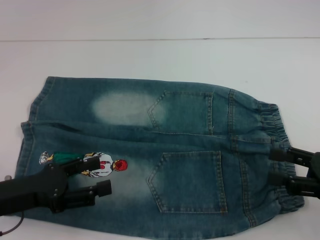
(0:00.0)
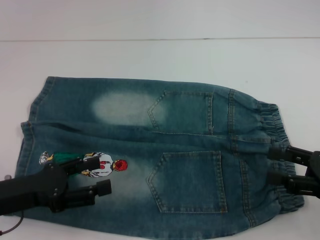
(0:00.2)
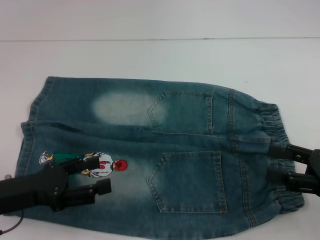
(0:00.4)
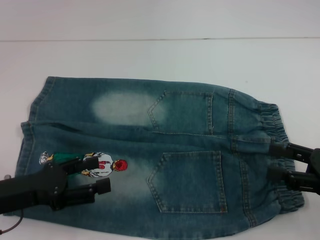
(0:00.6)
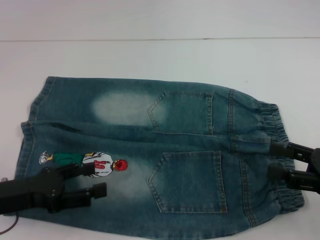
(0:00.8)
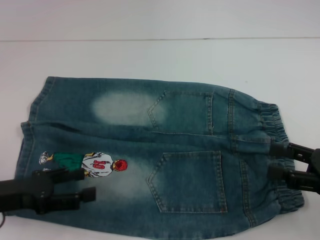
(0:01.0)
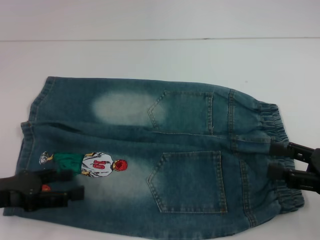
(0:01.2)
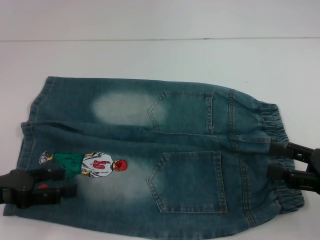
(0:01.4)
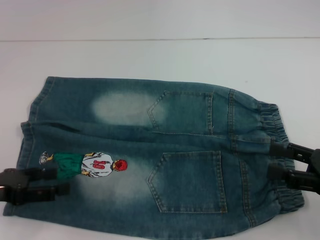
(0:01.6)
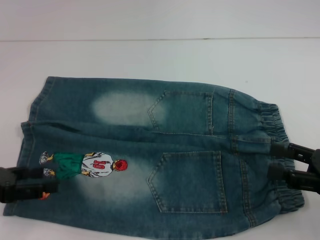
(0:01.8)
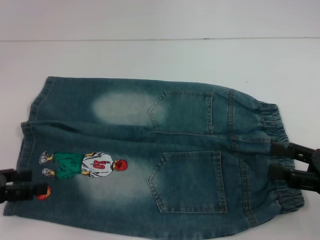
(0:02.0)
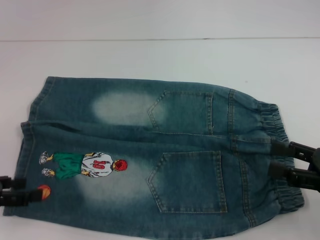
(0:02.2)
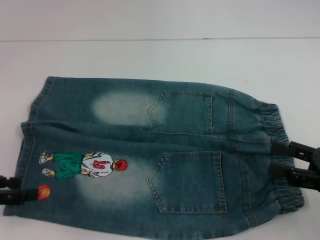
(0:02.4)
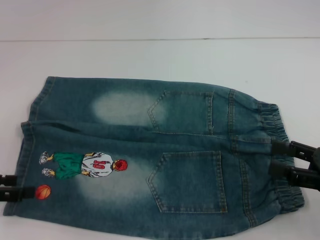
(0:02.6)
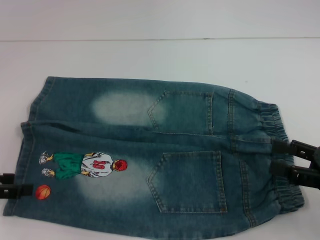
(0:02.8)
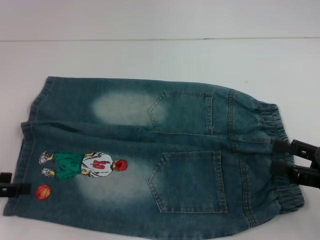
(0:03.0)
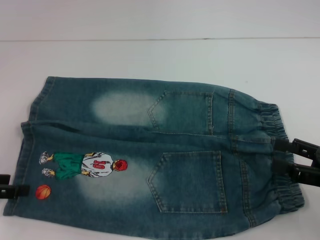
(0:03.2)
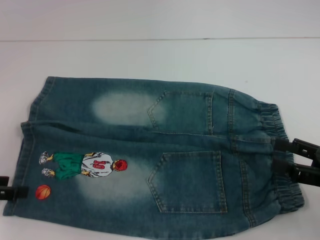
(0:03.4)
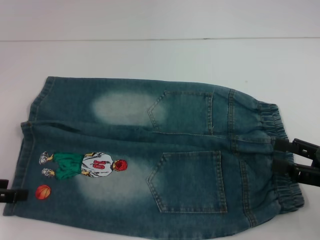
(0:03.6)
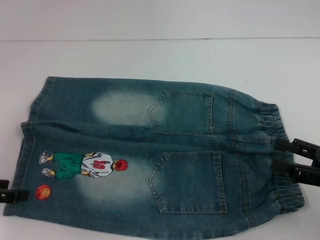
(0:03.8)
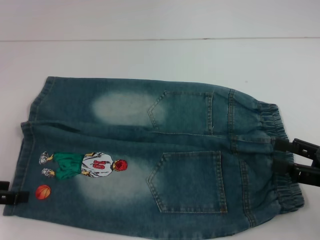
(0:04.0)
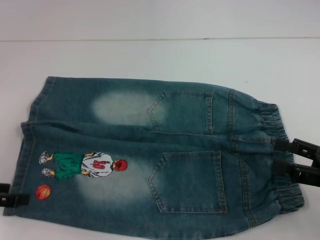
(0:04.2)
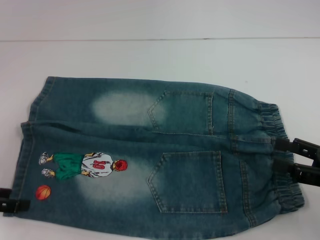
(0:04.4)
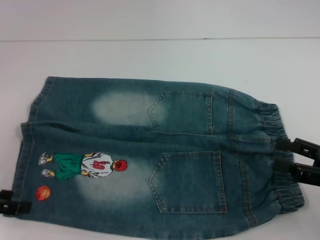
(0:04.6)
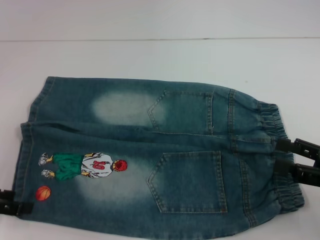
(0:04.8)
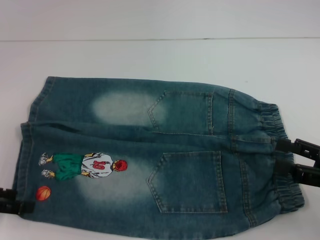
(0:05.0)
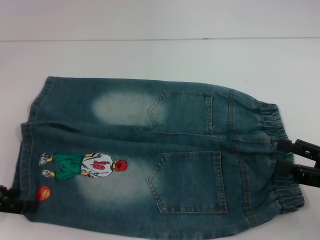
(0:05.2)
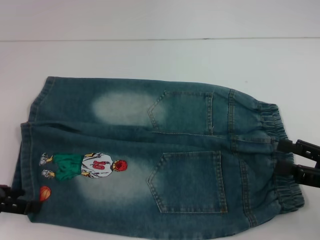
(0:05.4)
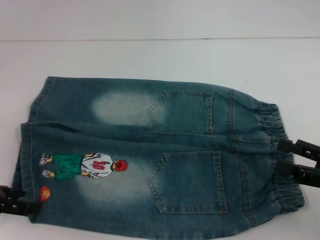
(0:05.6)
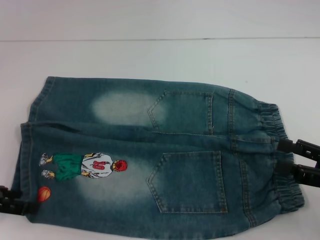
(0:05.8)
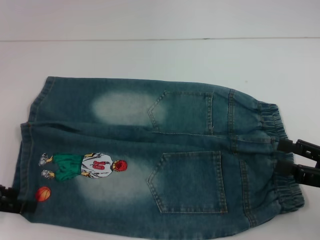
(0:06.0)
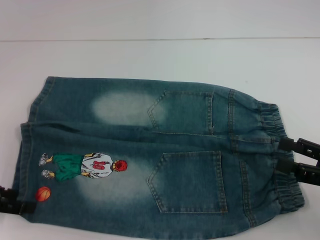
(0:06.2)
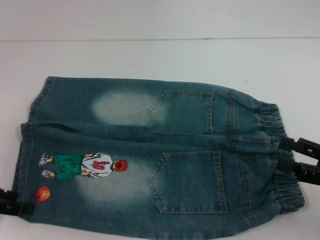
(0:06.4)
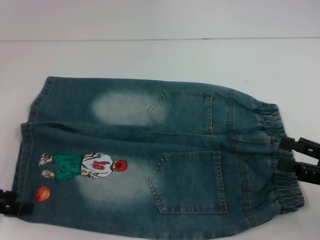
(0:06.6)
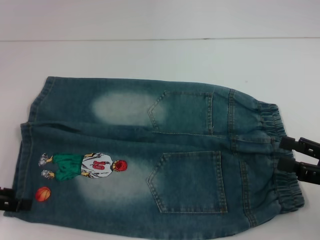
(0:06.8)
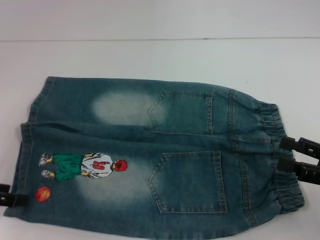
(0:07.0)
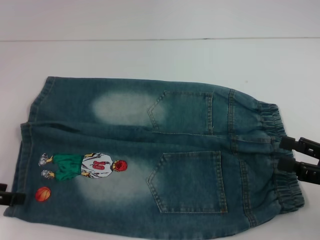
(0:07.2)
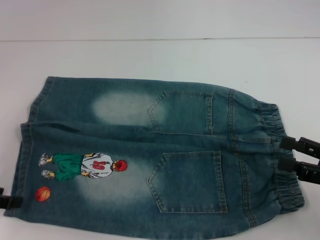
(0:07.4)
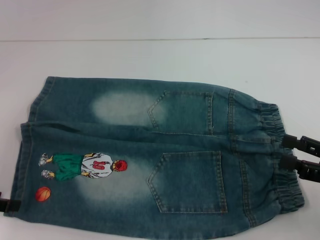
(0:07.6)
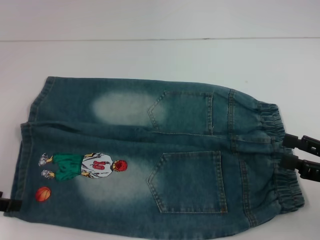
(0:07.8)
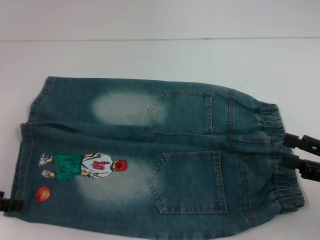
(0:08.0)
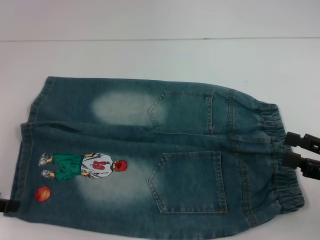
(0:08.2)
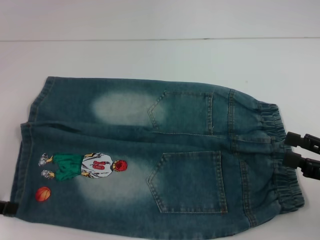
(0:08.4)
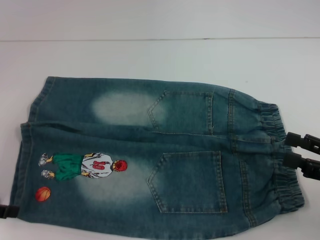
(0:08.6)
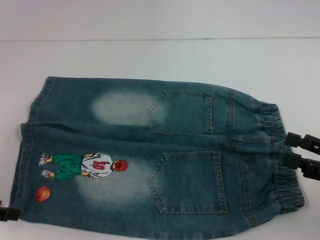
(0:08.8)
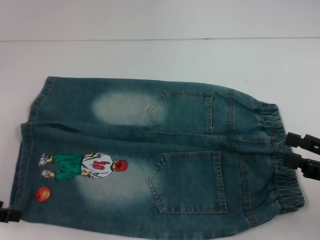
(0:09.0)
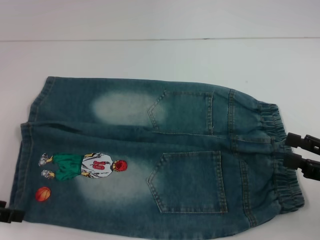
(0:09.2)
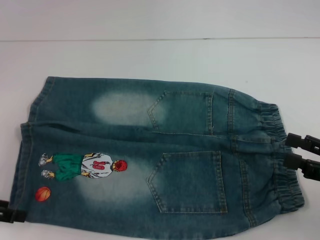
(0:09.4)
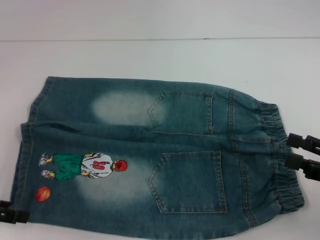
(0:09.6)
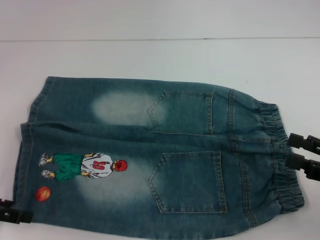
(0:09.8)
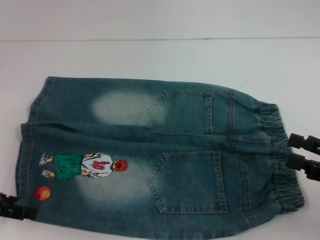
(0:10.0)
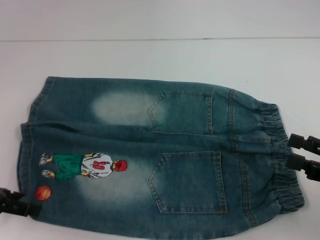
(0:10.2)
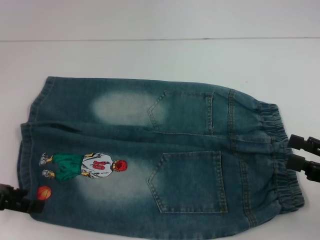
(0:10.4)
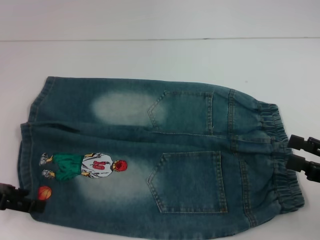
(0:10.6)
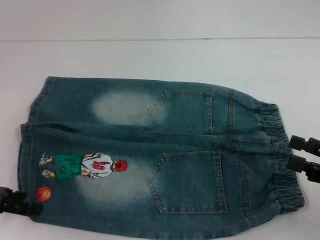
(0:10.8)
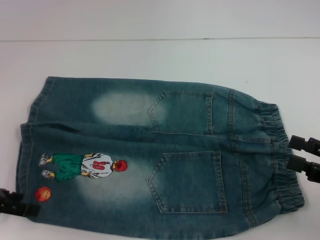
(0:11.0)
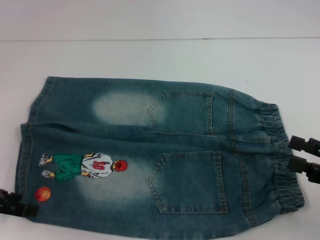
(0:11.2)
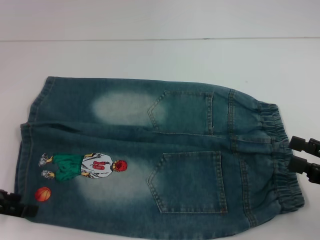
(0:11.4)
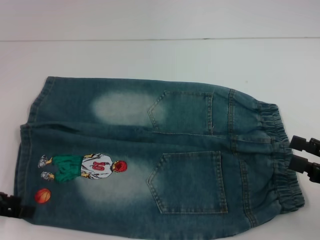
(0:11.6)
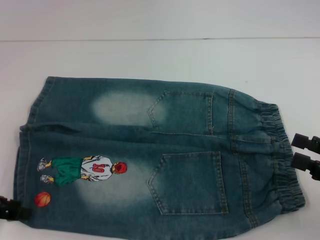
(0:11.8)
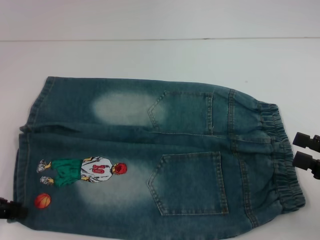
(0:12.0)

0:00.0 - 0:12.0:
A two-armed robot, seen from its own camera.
Step, 0:00.0 - 0:06.0: Grab the lower left pant leg with your left hand.
0:00.0 - 0:01.6: The left gripper moves to the left, approximately 5 cm.
0:01.6 - 0:03.0: There are only small adjustments of the grippers.
0:03.0 - 0:07.6: There are only small adjustments of the grippers.
0:07.6 - 0:09.0: Both grippers stay put.
0:09.0 - 0:10.4: The grippers stay close to where they were, moving slightly.
0:10.4 - 0:12.0: The left gripper closes up.

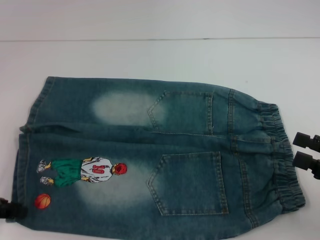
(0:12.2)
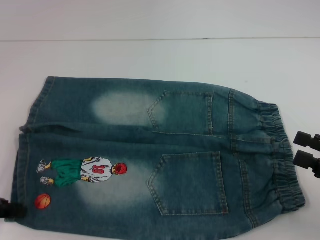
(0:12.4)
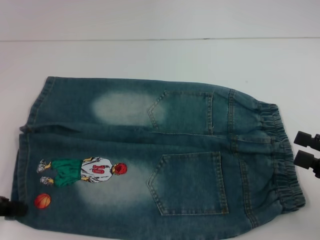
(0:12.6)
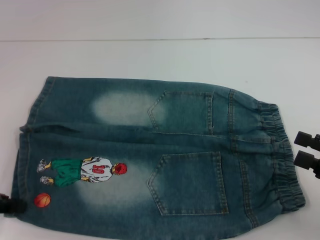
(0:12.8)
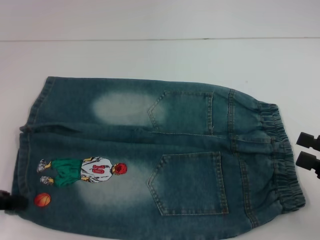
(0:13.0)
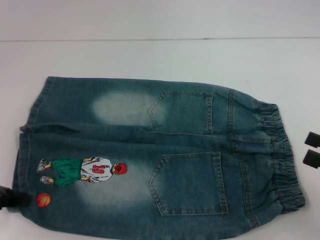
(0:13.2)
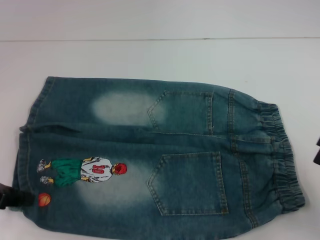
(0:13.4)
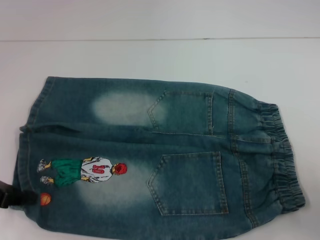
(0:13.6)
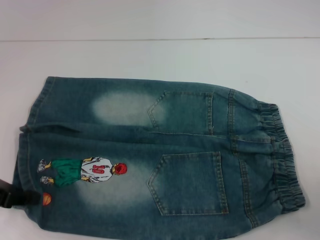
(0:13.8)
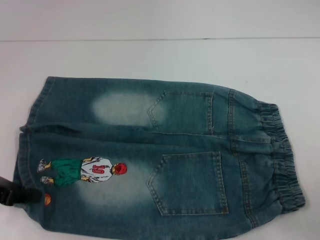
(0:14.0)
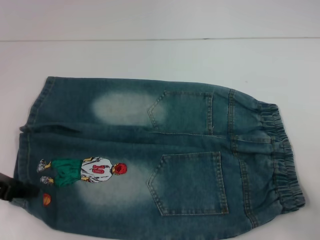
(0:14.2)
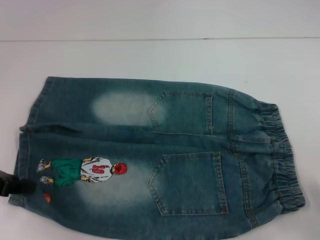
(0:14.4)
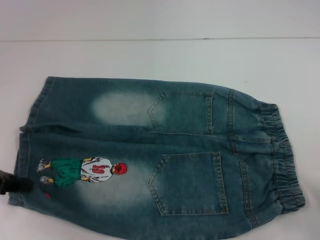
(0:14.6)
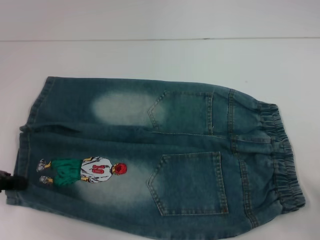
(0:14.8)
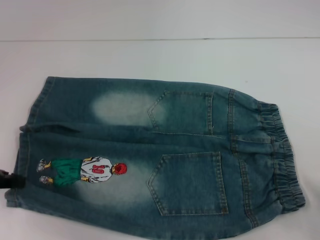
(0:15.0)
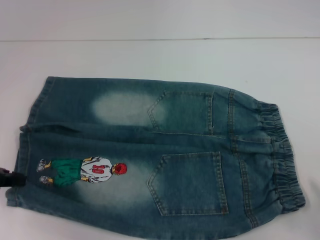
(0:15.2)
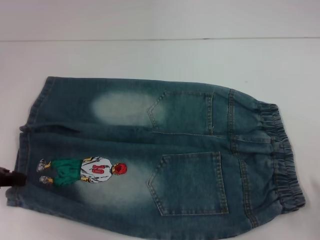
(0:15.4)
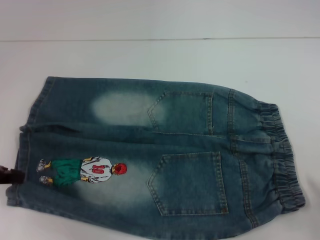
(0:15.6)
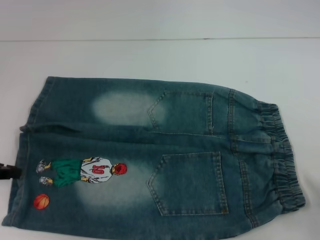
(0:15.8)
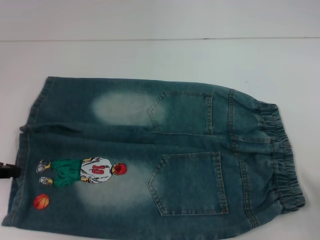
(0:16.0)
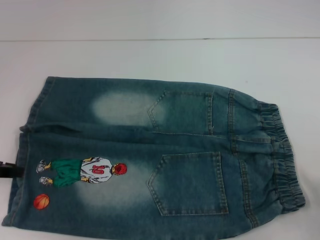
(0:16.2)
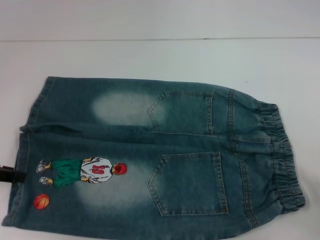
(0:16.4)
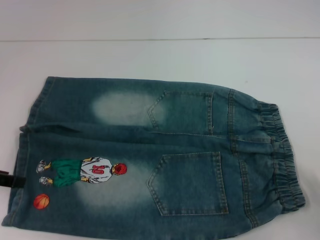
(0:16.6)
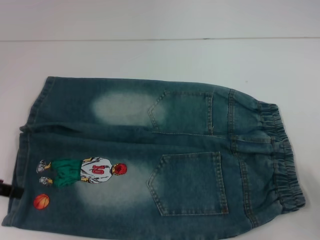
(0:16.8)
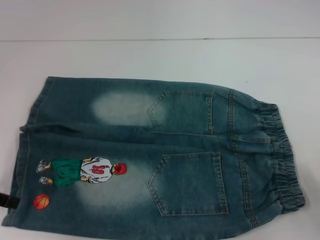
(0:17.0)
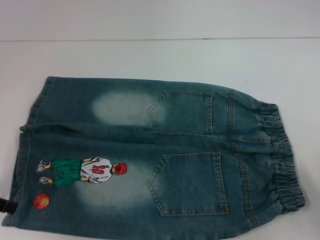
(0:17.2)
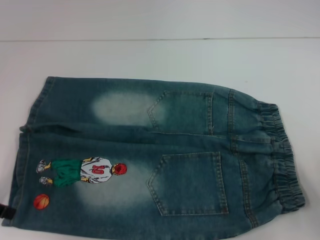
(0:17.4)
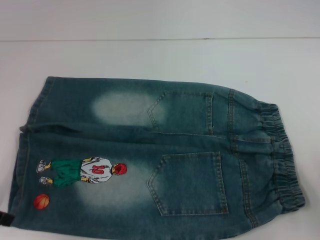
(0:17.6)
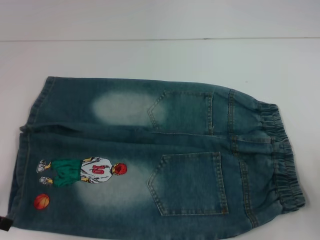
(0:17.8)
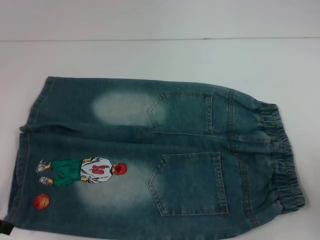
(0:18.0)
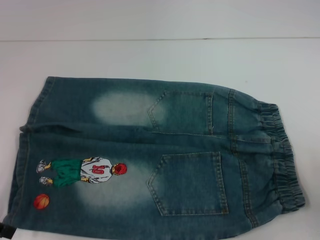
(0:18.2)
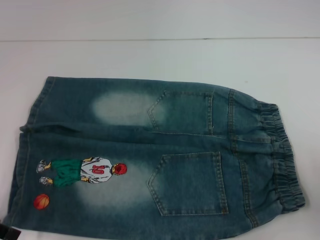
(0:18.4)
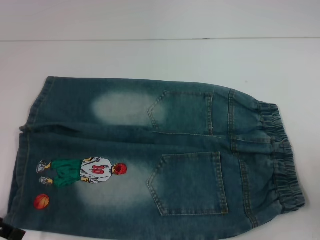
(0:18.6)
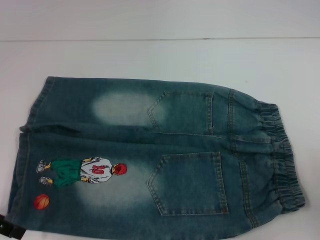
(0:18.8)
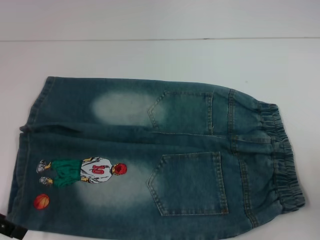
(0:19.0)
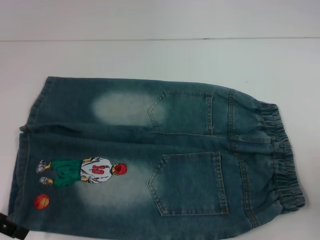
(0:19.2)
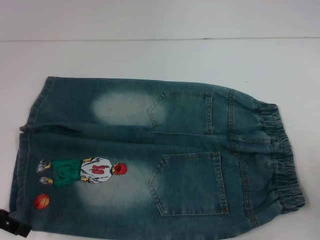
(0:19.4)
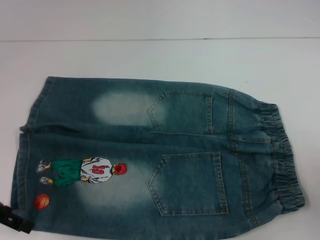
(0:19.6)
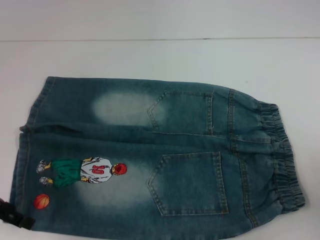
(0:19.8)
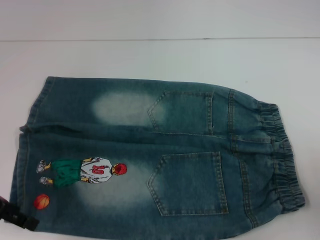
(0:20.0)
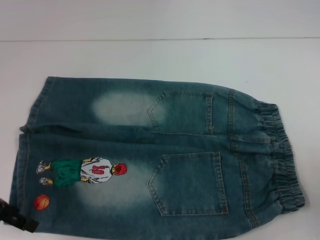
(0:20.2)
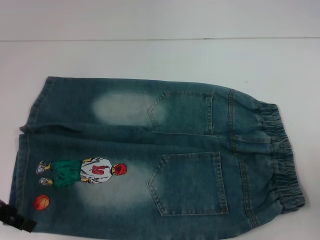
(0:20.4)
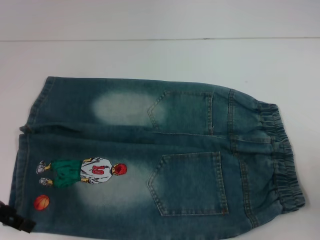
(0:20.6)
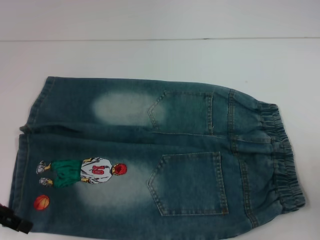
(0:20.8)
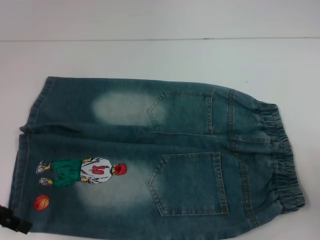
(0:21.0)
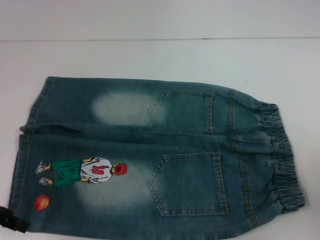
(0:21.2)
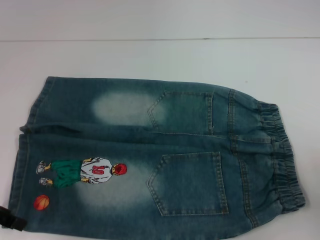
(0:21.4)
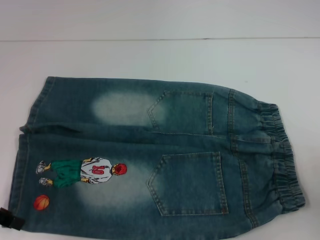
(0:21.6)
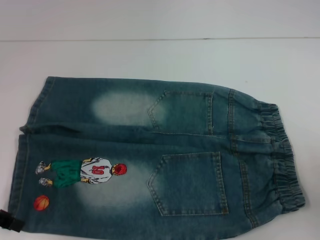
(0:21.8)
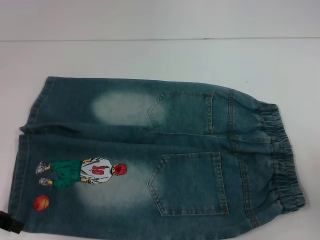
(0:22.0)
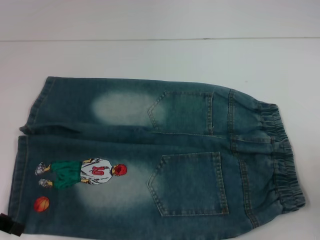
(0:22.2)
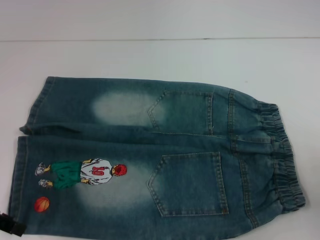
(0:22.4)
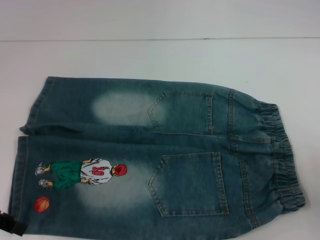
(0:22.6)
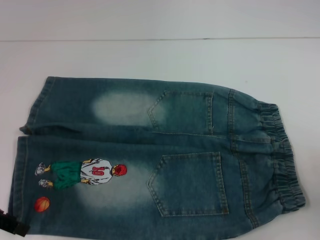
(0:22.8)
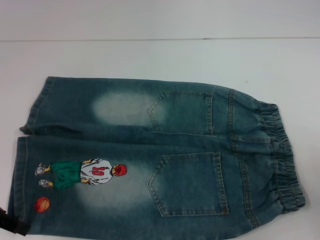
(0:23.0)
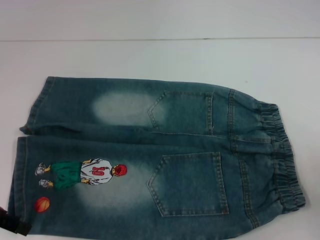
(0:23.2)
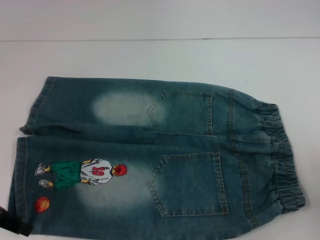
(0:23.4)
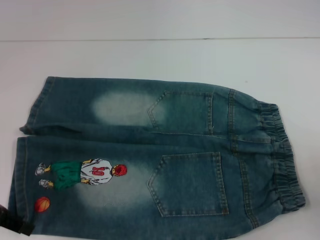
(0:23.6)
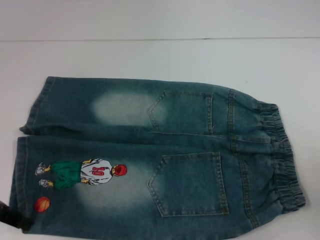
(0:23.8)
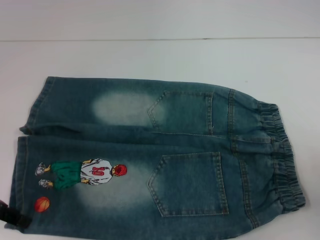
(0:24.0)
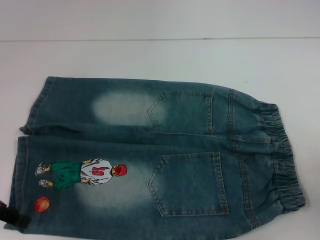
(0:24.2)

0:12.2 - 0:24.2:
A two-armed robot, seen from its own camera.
0:12.2 - 0:13.8: The right gripper changes place by about 5 cm.
0:13.8 - 0:16.6: The grippers make only small movements.
0:16.6 - 0:18.2: The left gripper opens its fingers.
0:18.2 - 0:19.8: The grippers move only a little.
0:19.8 - 0:24.2: Neither gripper changes place.
